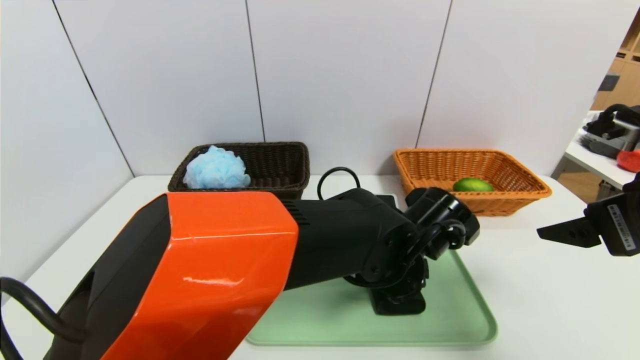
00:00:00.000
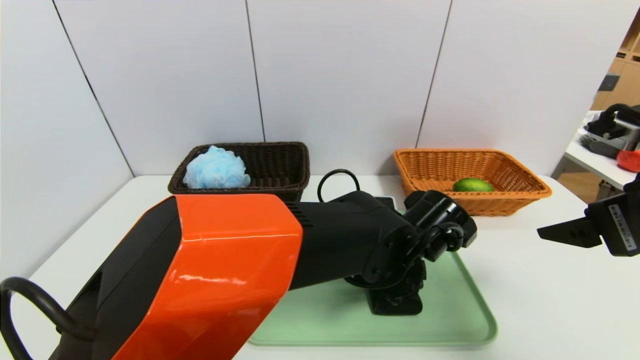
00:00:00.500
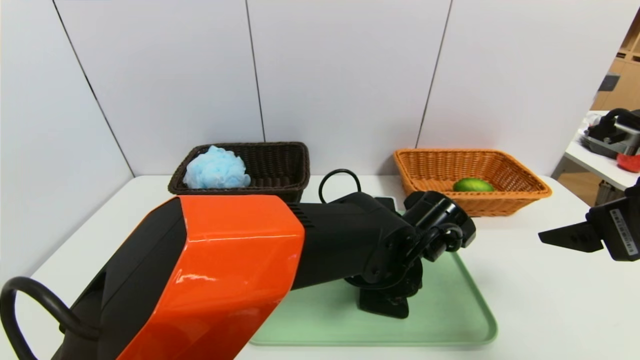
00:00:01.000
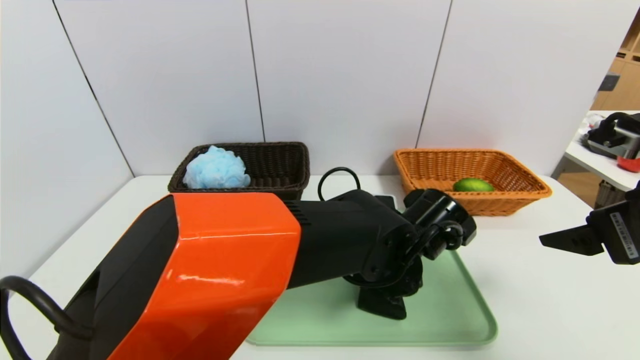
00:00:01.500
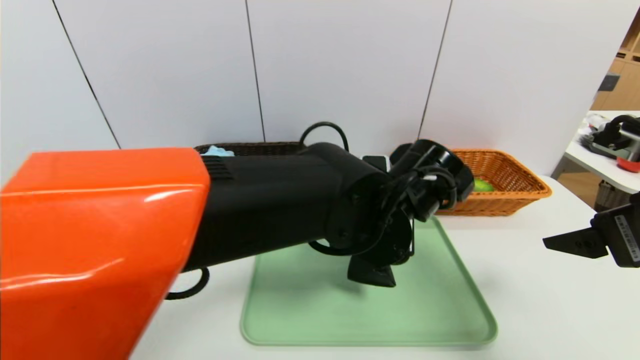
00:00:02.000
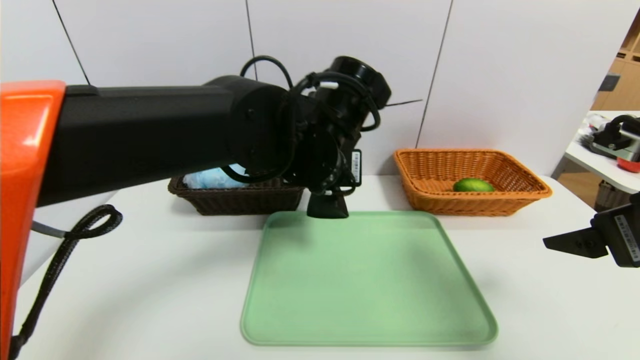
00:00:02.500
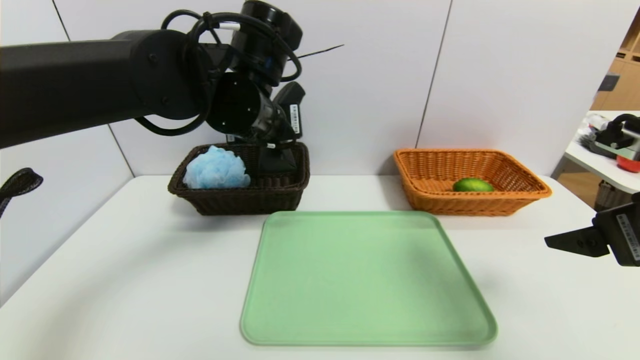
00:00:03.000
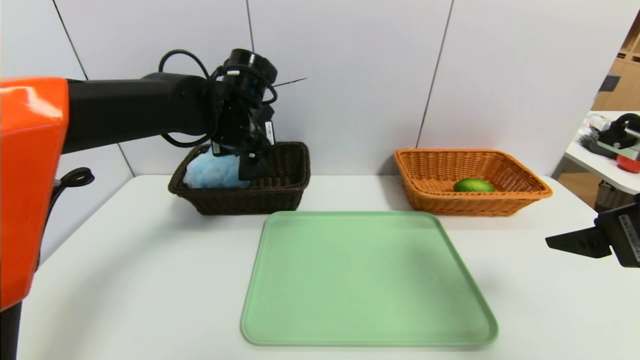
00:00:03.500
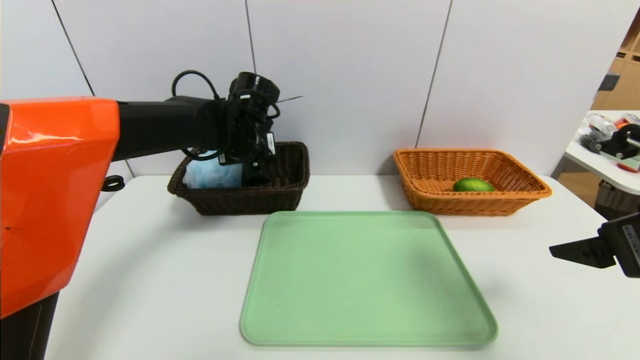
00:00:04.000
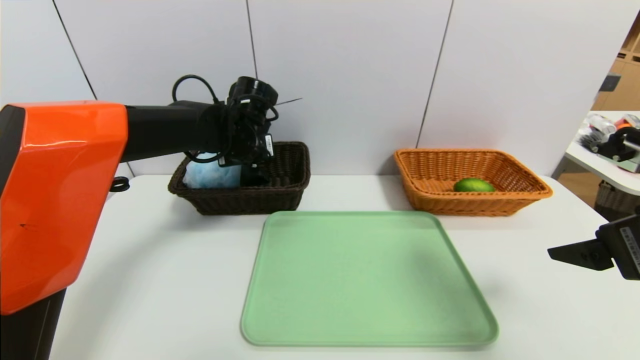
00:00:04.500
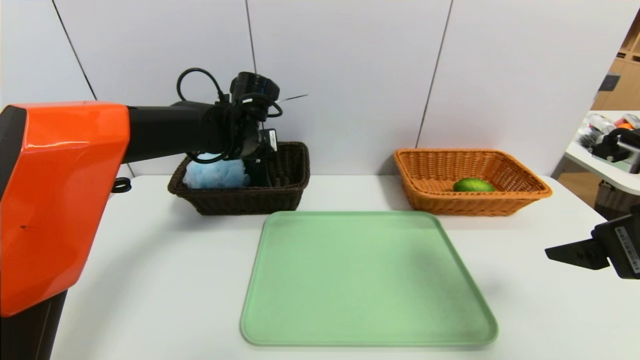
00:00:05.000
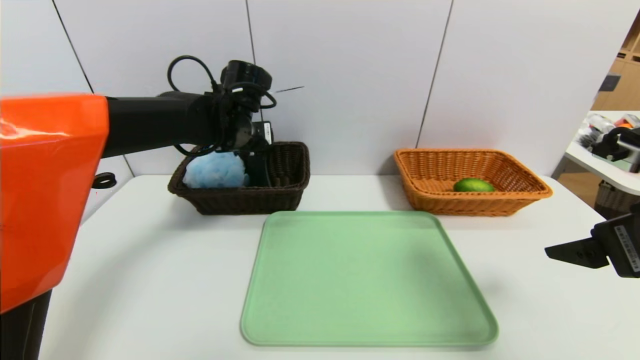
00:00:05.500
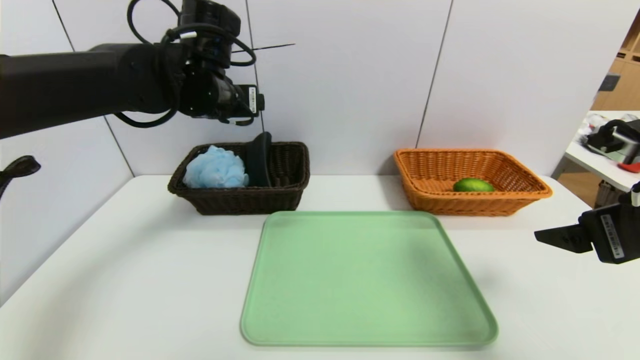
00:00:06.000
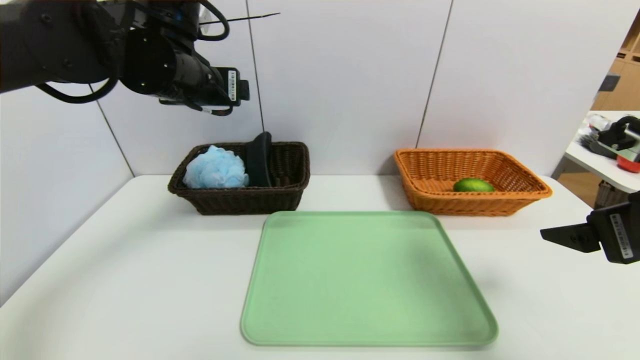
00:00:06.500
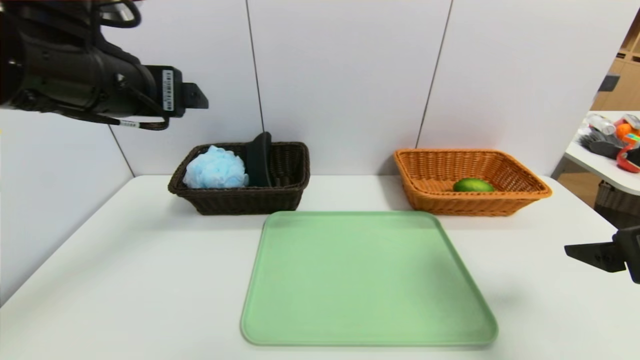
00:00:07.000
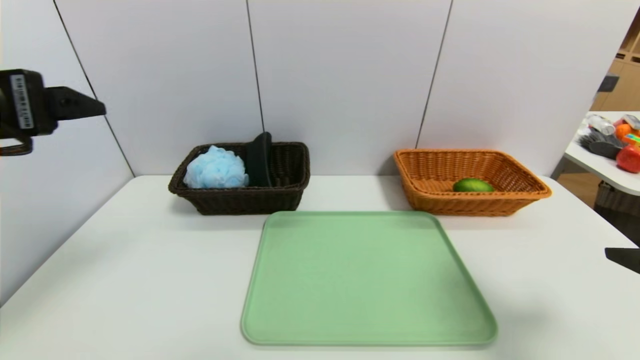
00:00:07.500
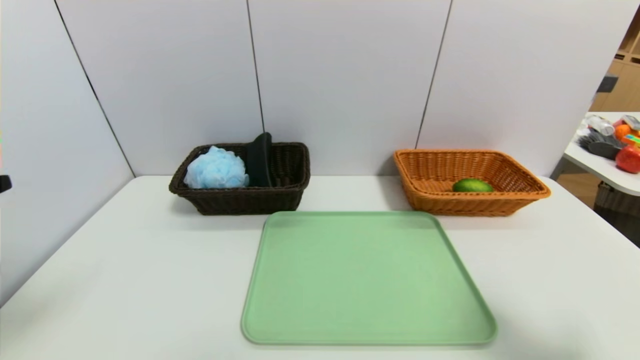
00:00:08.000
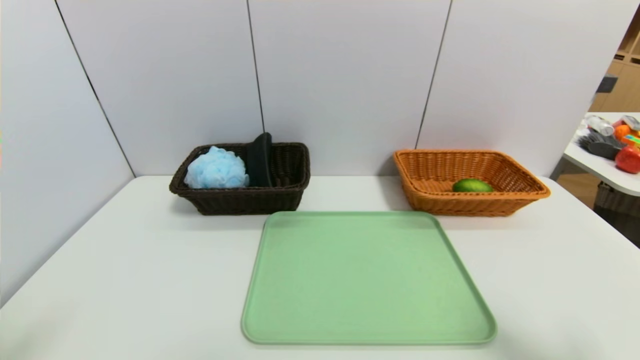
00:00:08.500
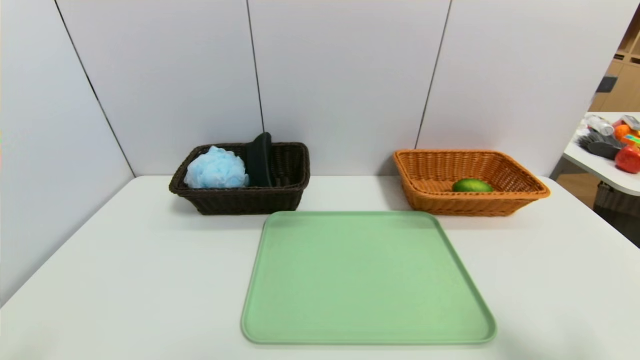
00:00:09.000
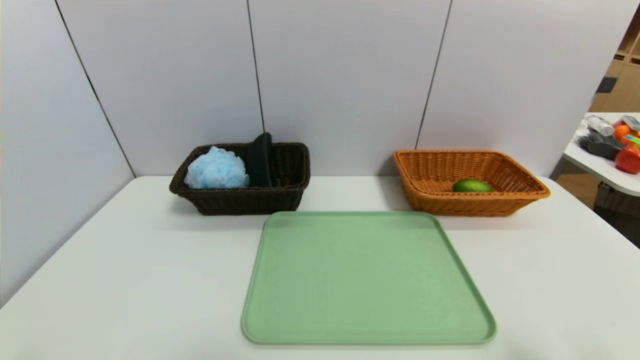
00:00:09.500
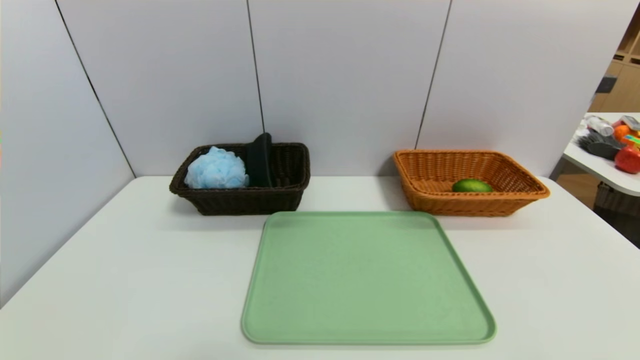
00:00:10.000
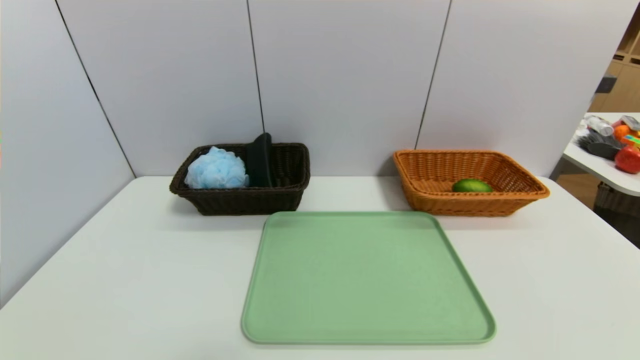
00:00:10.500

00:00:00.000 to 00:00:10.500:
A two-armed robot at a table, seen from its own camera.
Task of the whole recording: place the food in the right basket with the right gripper, and place the non food items in the left basket with the left gripper.
Step, 00:00:00.000 to 00:00:05.500: Grasp the glasses case and put it in the left basket.
00:00:00.000 to 00:00:02.000: The left gripper moves upward, some 5 cm, and closes up.
00:00:02.000 to 00:00:04.000: The left gripper is displaced to the left and forward by approximately 25 cm.
00:00:04.000 to 00:00:06.500: The left gripper goes approximately 15 cm upward and backward, and opens up.
00:00:06.500 to 00:00:08.500: The right gripper travels backward by about 10 cm. The left gripper heads backward and to the left, covering some 35 cm.
00:00:08.500 to 00:00:10.500: The right gripper moves backward and downward, about 15 cm.

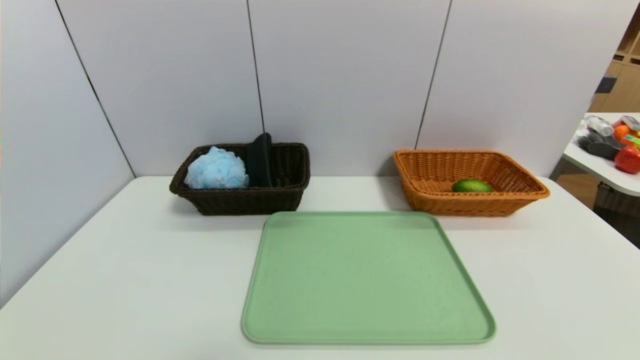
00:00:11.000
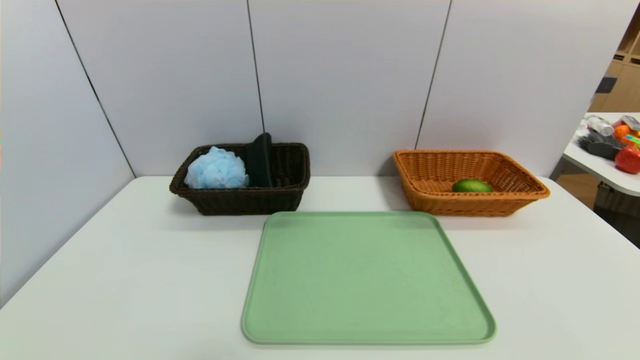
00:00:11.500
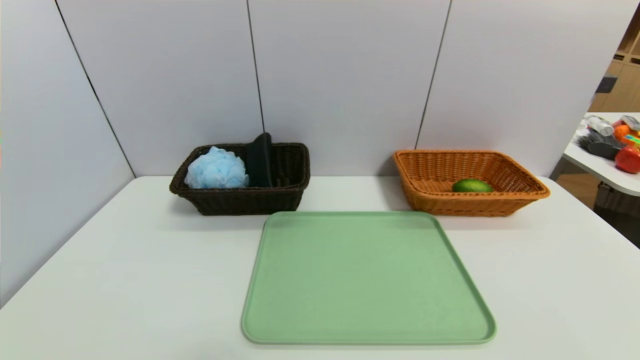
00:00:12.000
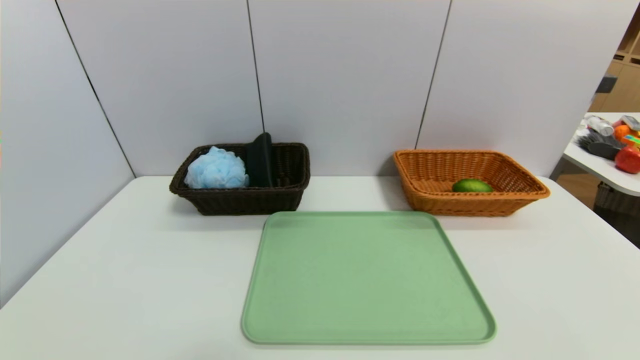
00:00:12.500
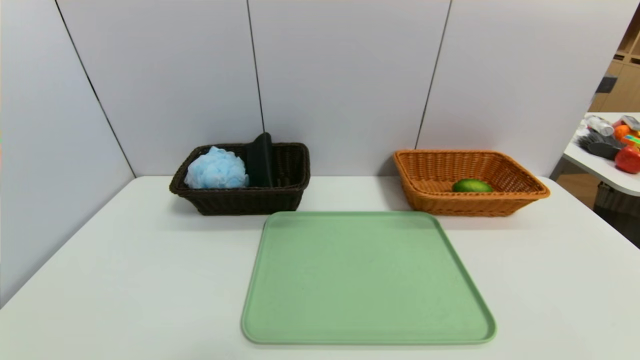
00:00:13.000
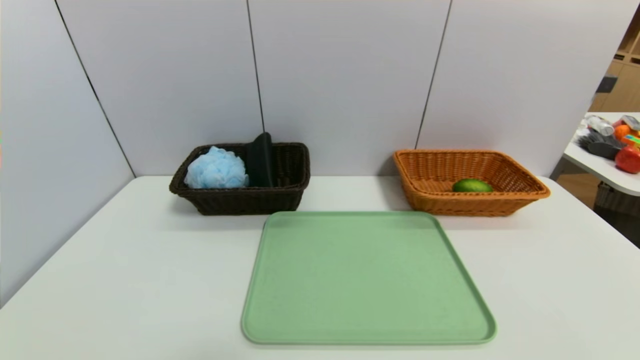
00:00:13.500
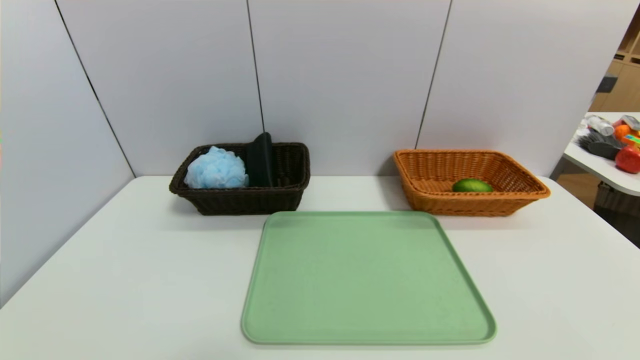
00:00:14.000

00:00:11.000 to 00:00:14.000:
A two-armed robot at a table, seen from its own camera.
Task of the whole recording: place the food in the right basket with the right gripper, and place the non food items in the left basket with the left gripper.
00:00:12.500 to 00:00:14.000: The two grippers keep their place.

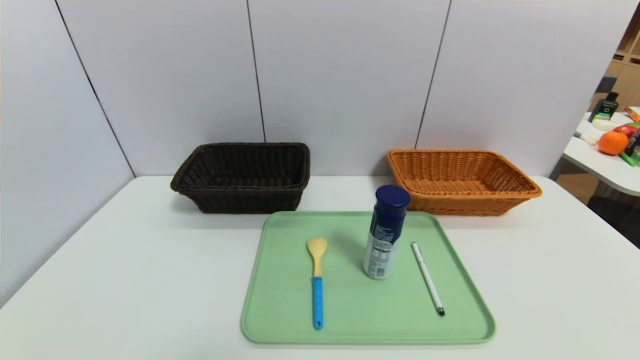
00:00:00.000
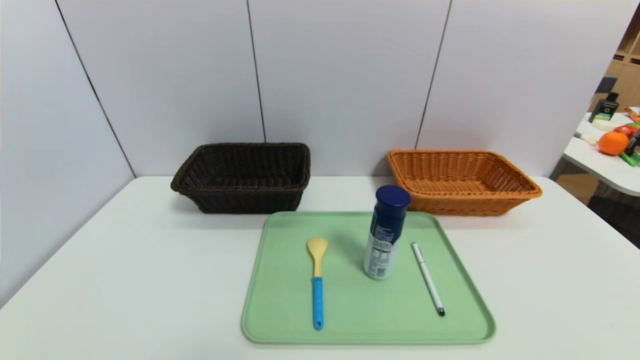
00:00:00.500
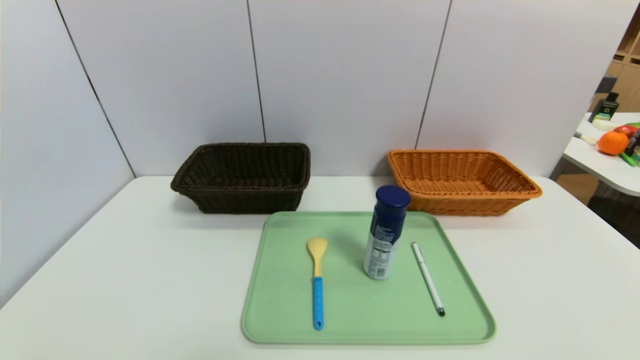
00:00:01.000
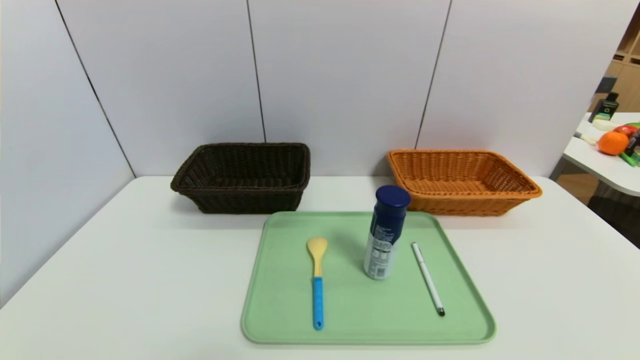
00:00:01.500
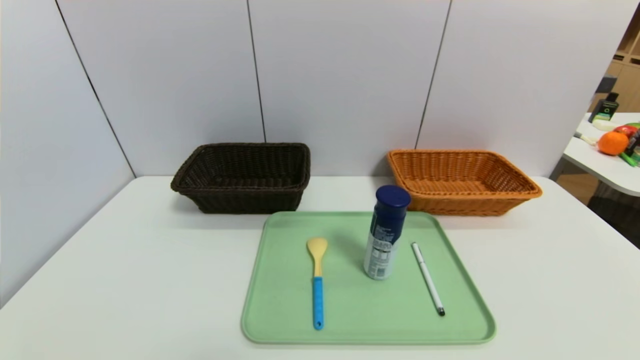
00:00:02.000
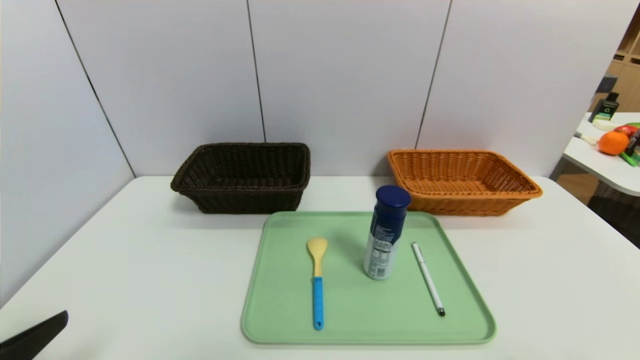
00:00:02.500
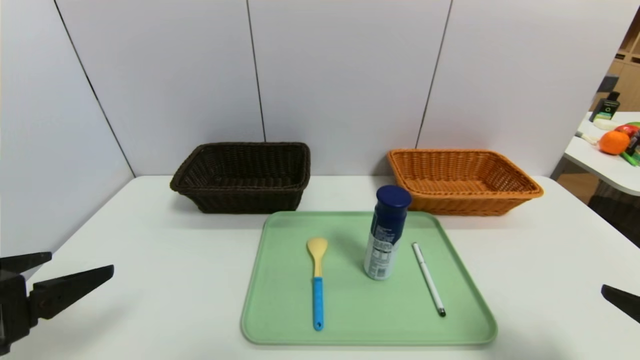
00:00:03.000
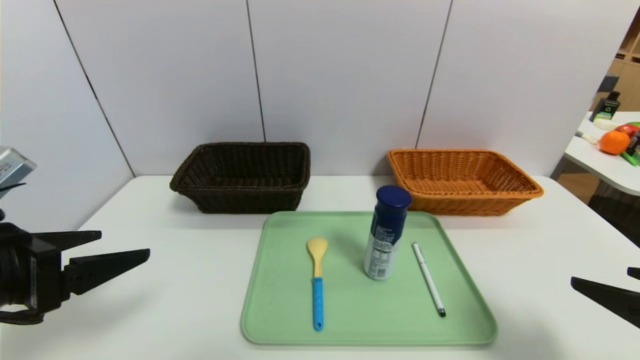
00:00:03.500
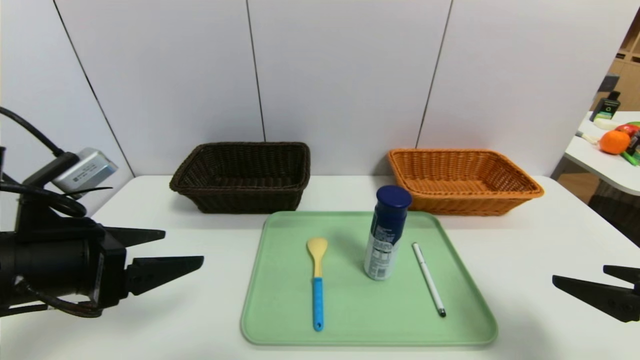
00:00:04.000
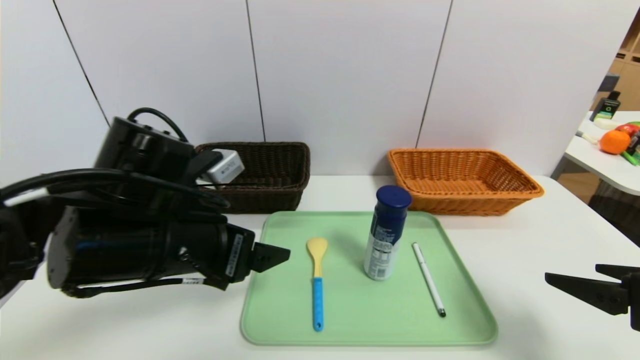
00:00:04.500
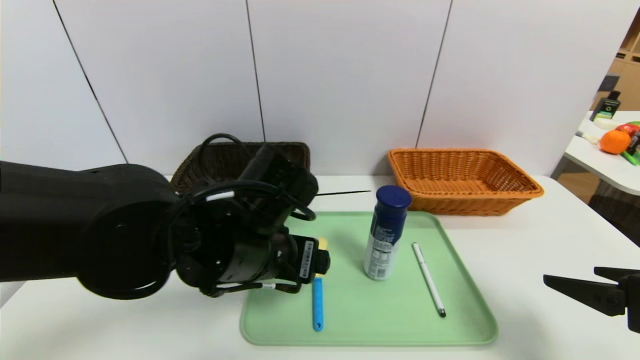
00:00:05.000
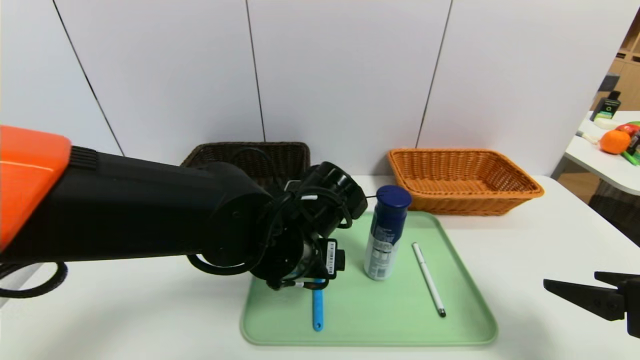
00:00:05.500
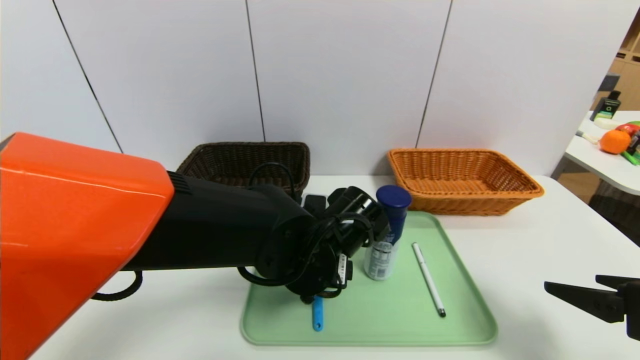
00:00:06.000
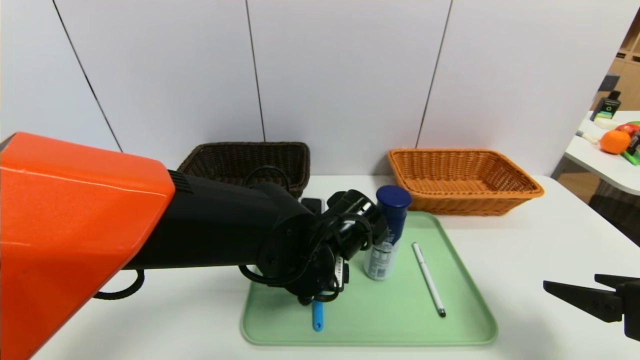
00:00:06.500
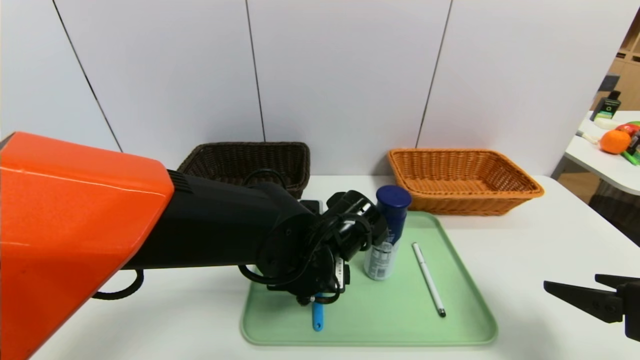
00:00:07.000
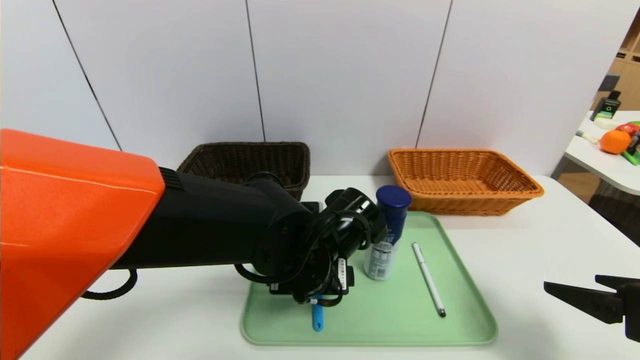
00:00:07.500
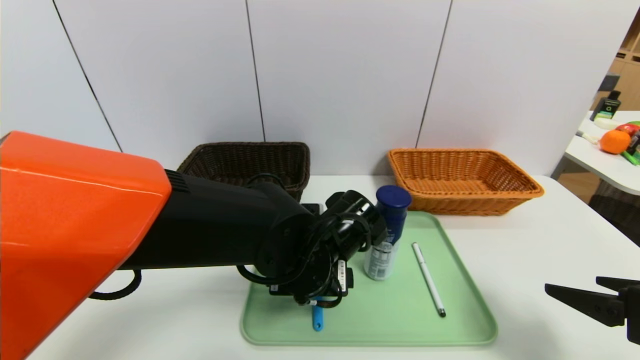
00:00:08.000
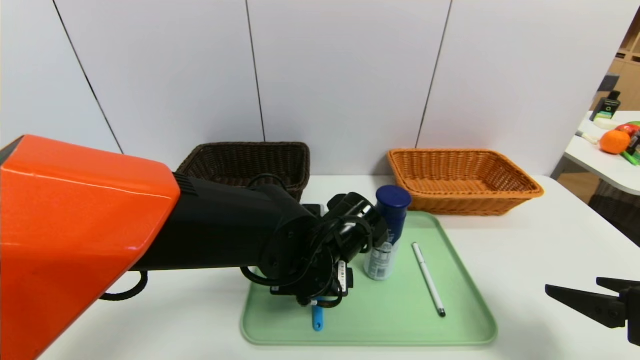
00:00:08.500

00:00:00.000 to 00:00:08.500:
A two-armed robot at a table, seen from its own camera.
Task of the whole recording: place the food in the right basket with the right gripper, and place the non food items in the left basket with the left gripper.
00:00:02.000 to 00:00:04.000: The left gripper shifts approximately 20 cm forward and upward. The right gripper travels forward by roughly 15 cm.
00:00:04.000 to 00:00:06.500: The left gripper heads to the right, covering approximately 25 cm.
00:00:06.500 to 00:00:08.500: There are only small adjustments of the grippers.
